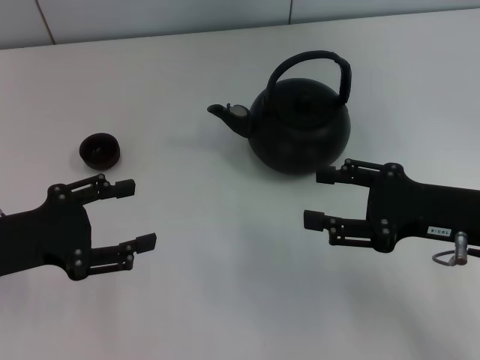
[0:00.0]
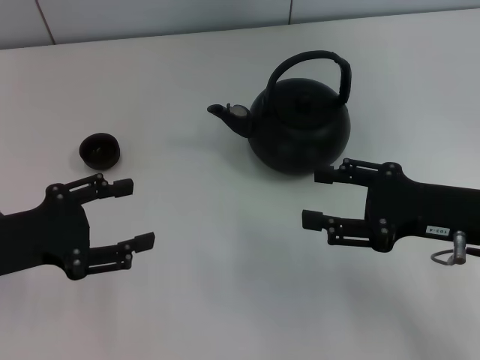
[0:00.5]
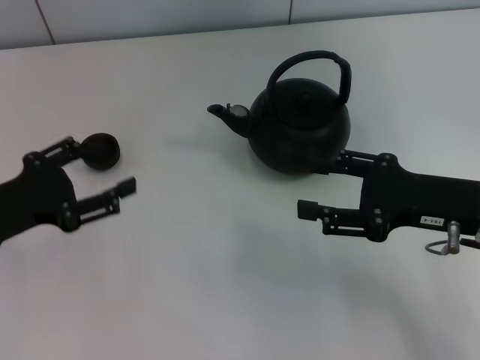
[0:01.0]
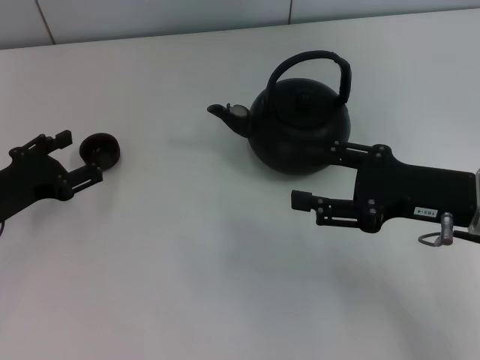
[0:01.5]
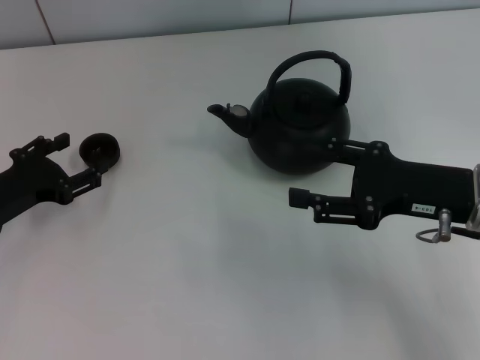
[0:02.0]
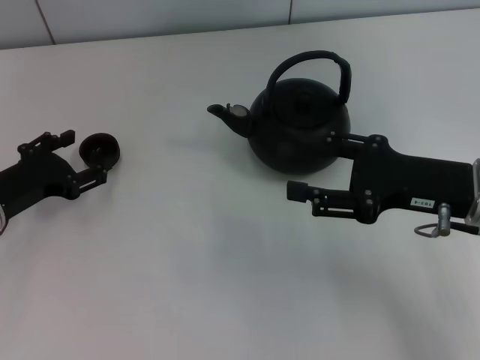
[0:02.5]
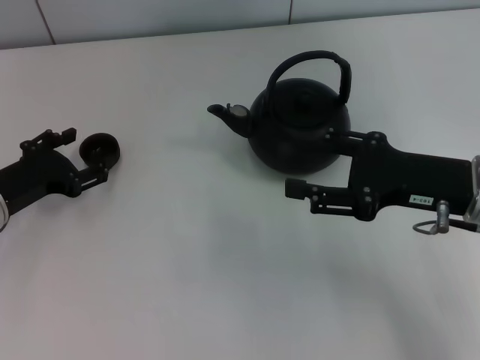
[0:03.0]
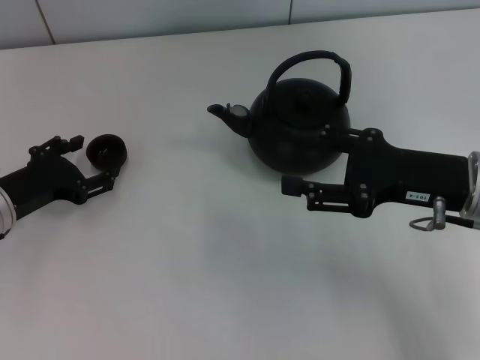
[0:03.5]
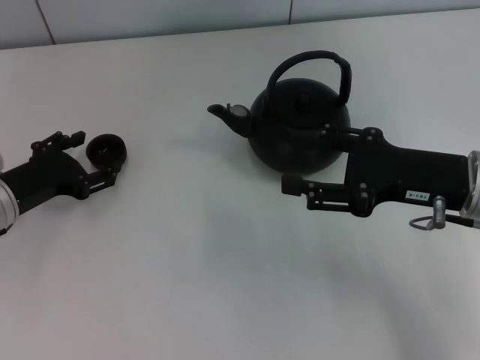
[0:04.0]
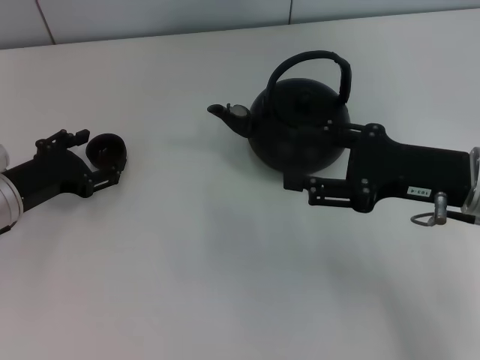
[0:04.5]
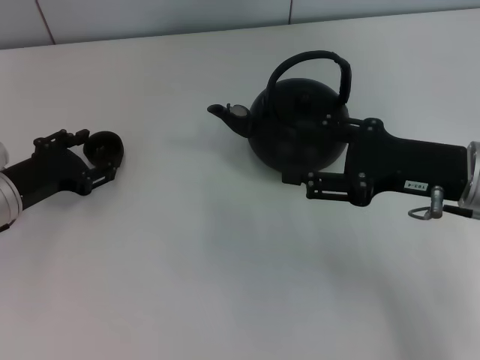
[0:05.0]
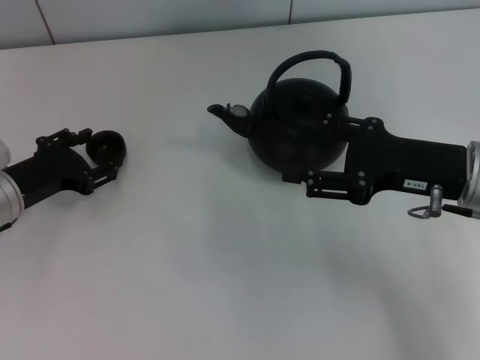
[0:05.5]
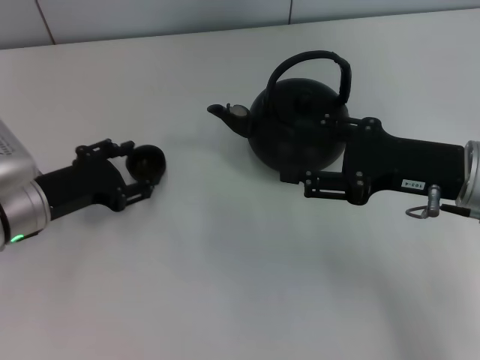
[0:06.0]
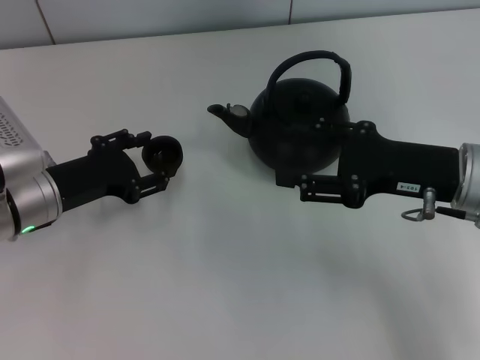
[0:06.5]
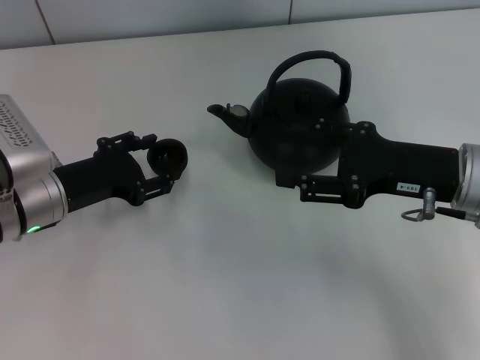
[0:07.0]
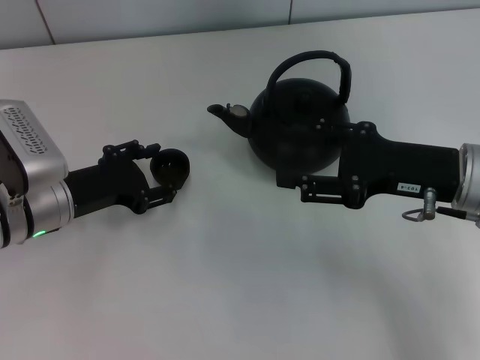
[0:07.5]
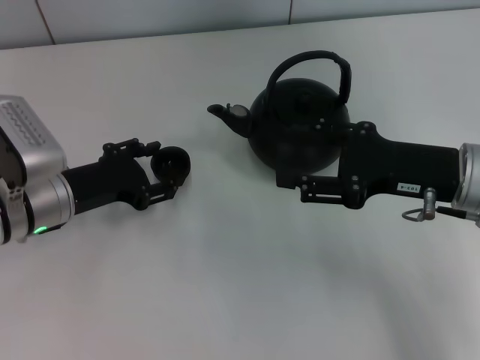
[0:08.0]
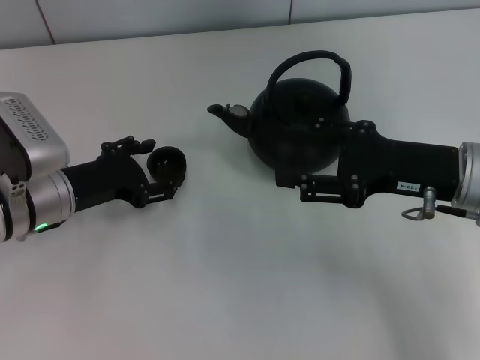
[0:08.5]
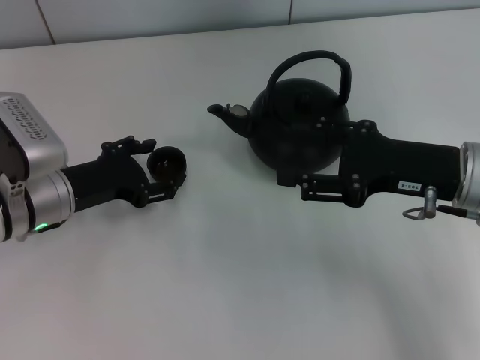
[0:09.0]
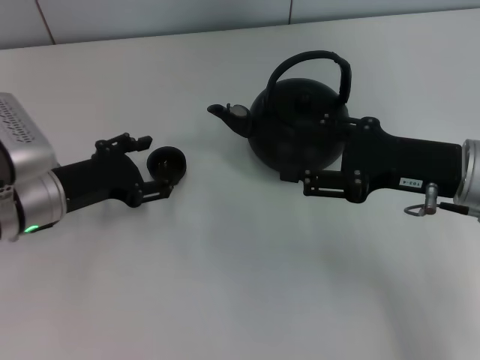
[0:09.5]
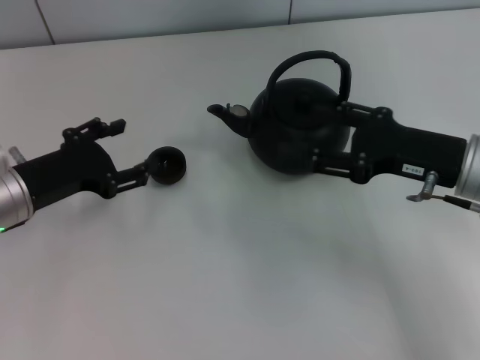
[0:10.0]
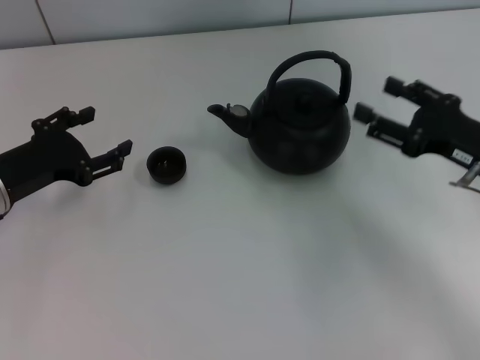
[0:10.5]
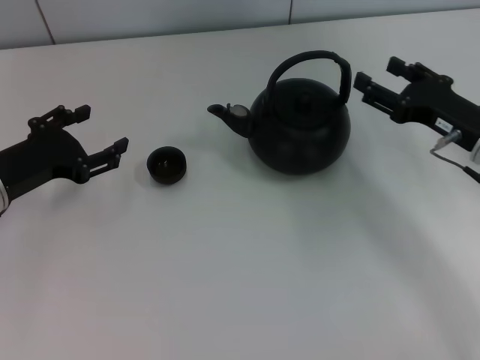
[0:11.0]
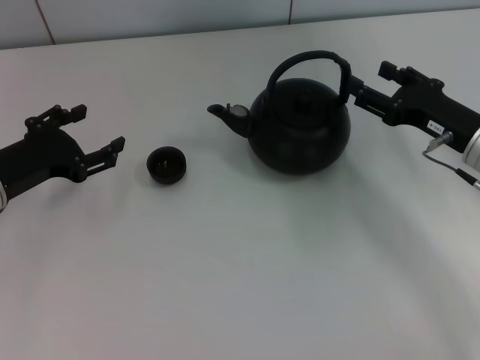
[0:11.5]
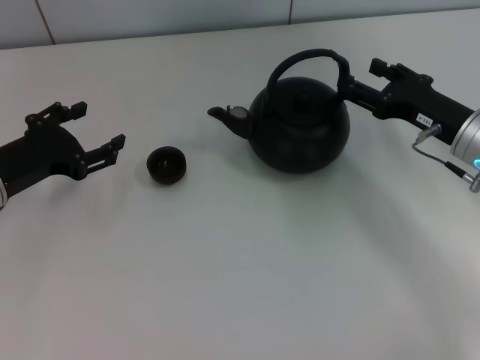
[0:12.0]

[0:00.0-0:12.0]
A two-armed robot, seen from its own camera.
Task of the whole recording: Grasp the handle of the teapot with one hand and pour tea into the teacup.
Step, 0:00.0 to 0:06.0: Pick up the teacup with the left gripper.
Step, 0:07.0 to 0:10.0: Place the teacup in the center of view with the left gripper.
0:00.0 to 0:02.0: The left gripper moves downward, about 5 cm.
0:02.0 to 0:04.0: The grippers make only small movements.
0:04.0 to 0:06.0: The left gripper closes.
0:06.0 to 0:08.0: The grippers make only small movements.
0:08.0 to 0:10.0: The left gripper opens its fingers.
0:10.0 to 0:12.0: The right gripper moves roughly 5 cm.

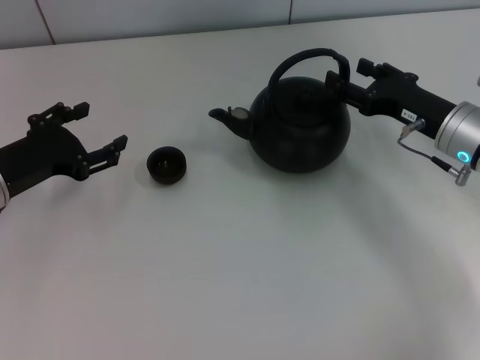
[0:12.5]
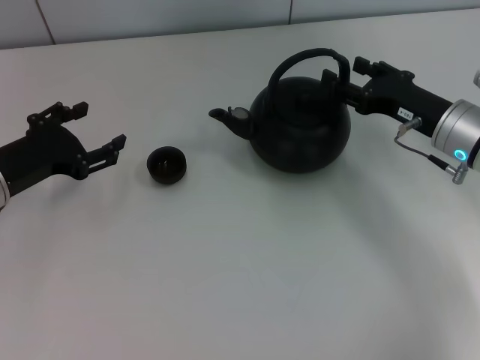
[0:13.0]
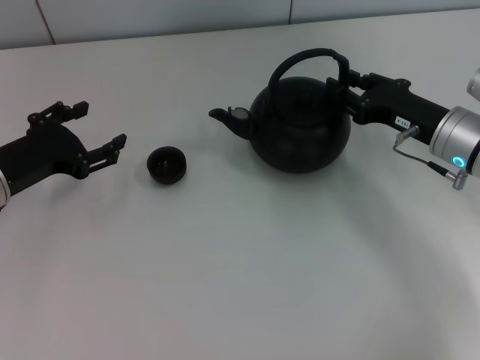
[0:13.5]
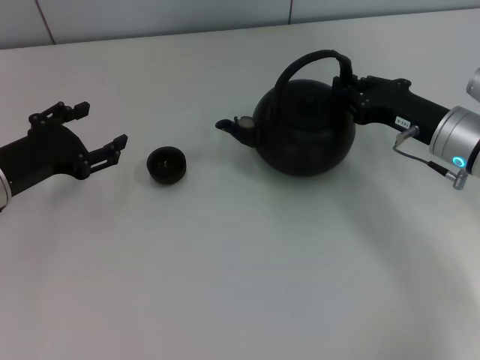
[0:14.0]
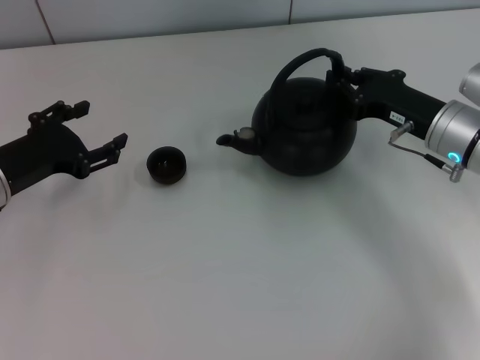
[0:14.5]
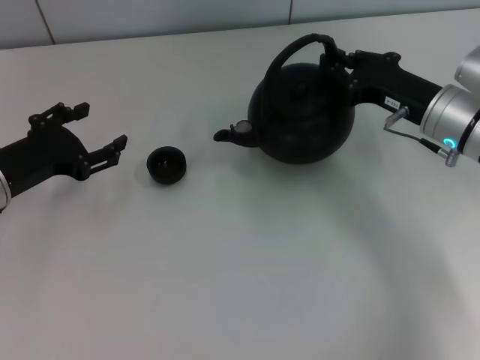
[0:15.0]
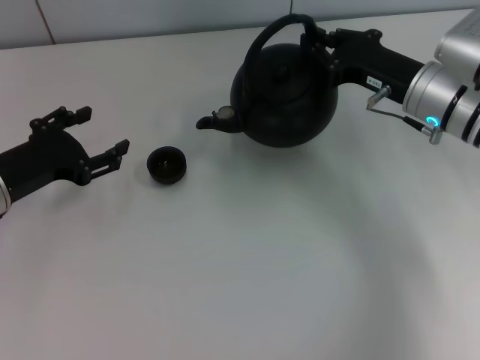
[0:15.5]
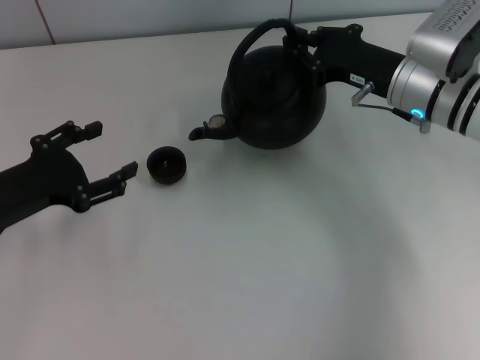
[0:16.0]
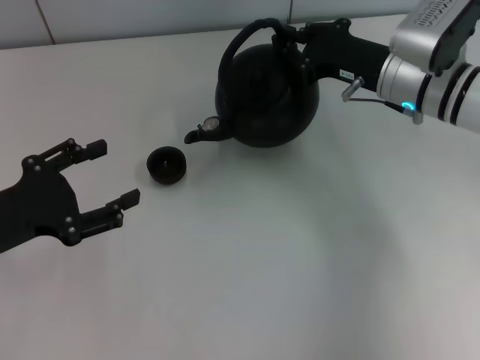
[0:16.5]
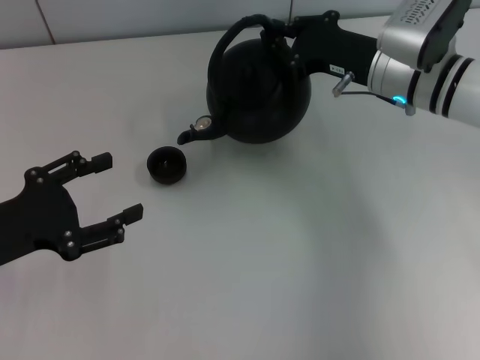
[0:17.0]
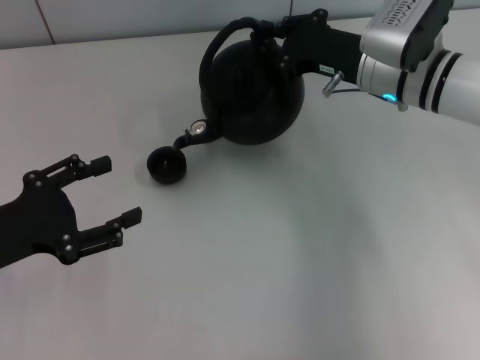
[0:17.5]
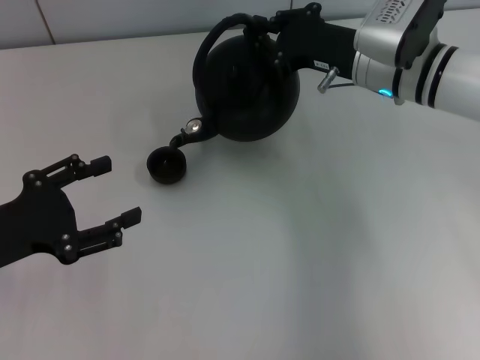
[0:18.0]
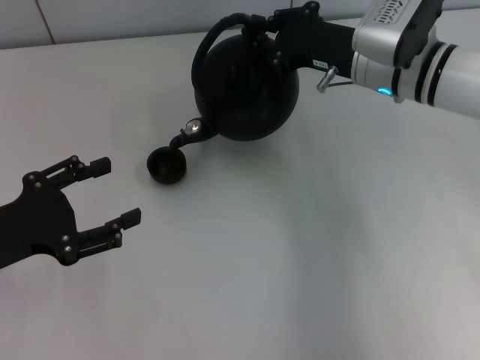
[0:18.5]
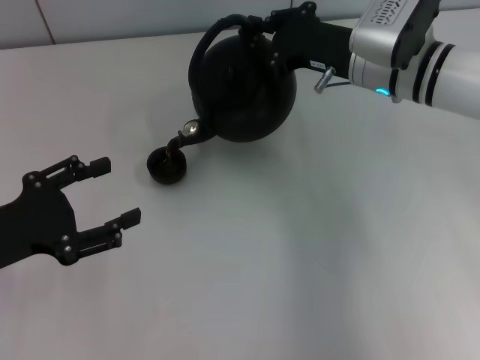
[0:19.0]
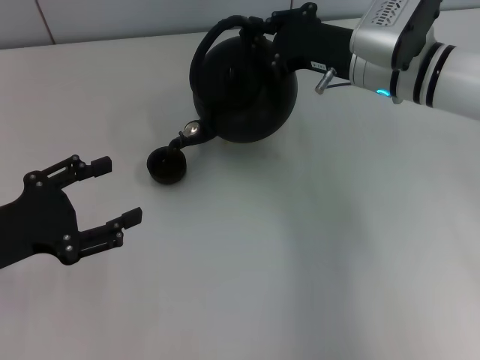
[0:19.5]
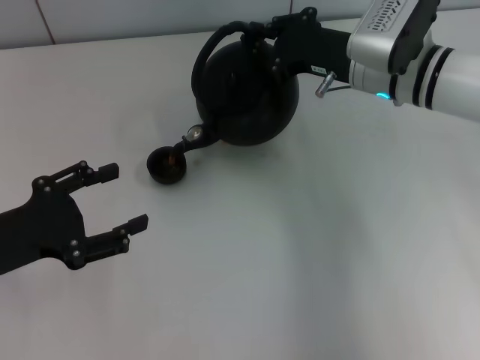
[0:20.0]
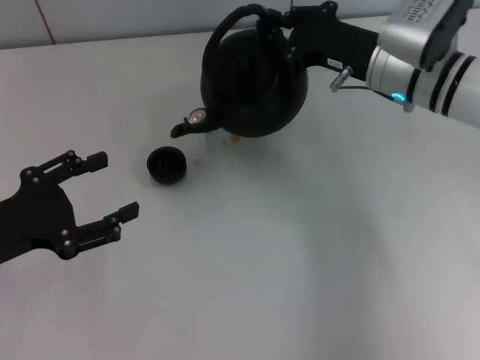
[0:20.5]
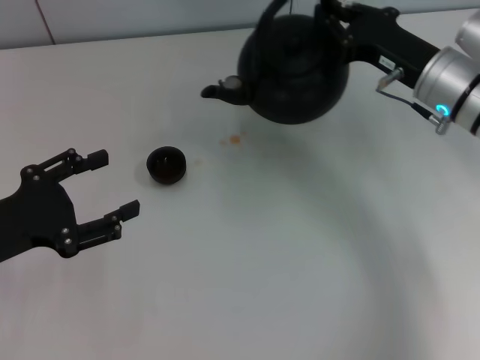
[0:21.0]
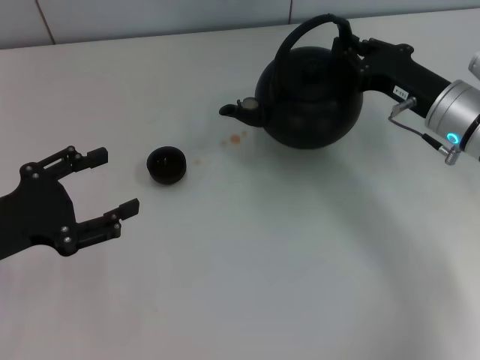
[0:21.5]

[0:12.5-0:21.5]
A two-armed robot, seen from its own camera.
Task of the whole recording: Grasp the handle of the teapot with one hand and pour tea into the teacup.
Step, 0:12.5 to 0:14.5: Pick up the teapot with the right gripper.
0:12.5 to 0:14.5: The right gripper closes up.
0:14.5 to 0:17.0: The right gripper is displaced to the left and forward by some 10 cm. Meanwhile the left gripper moves backward, approximately 10 cm.
0:17.0 to 0:19.5: There are only small adjustments of the grippers.
0:19.5 to 0:21.5: The right gripper shifts some 10 cm to the right and backward.

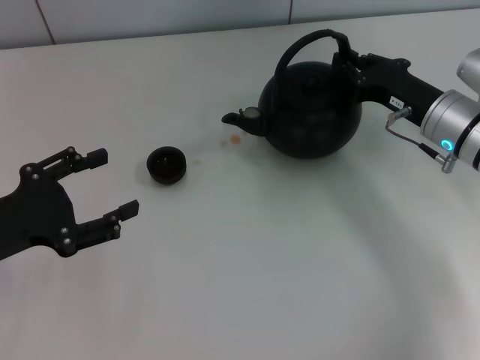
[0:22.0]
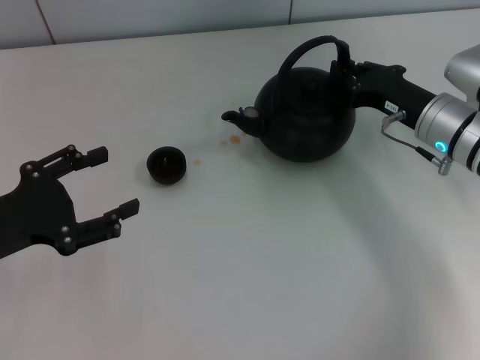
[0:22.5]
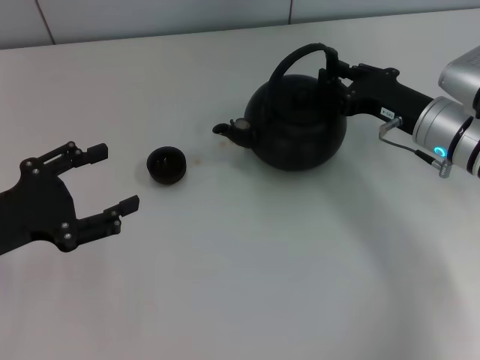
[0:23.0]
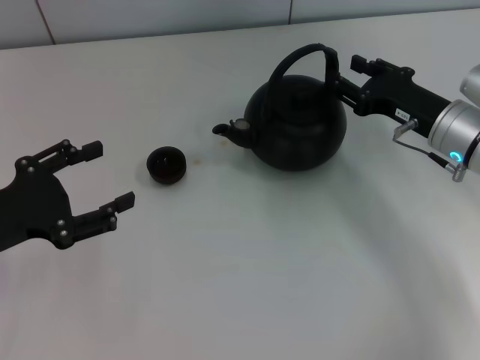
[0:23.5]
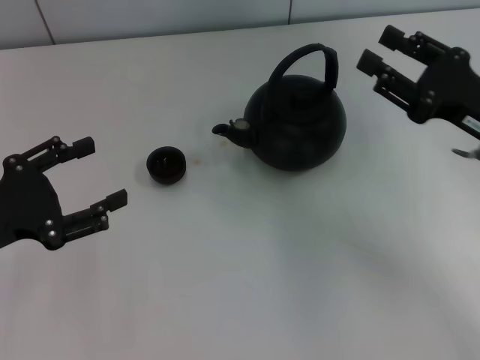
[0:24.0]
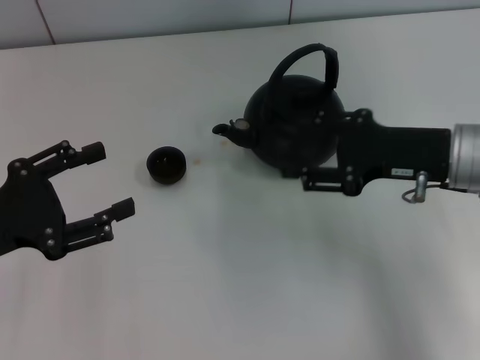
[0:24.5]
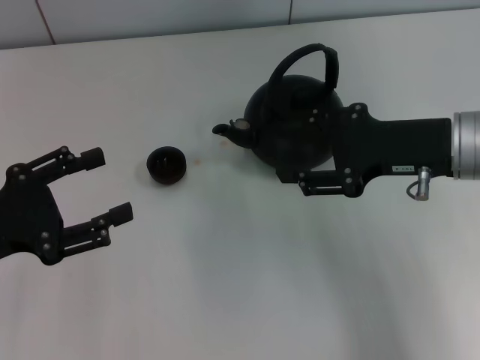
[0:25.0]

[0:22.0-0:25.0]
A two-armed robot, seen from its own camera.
Task of the whole recording: Grasp the handle of the teapot with one hand and pour tea into the teacup.
Step, 0:22.0 to 0:23.5: Put down the teapot with the right gripper.
0:22.0 to 0:23.5: The right gripper opens its fingers.
0:23.5 to 0:25.0: The right gripper moves upward, roughly 10 cm.

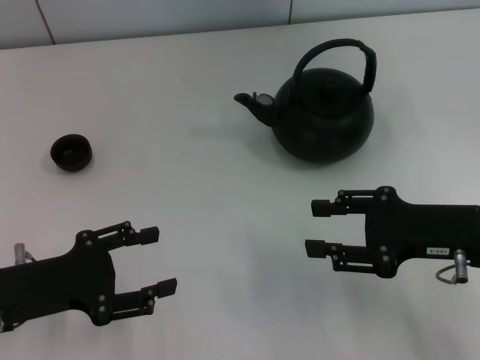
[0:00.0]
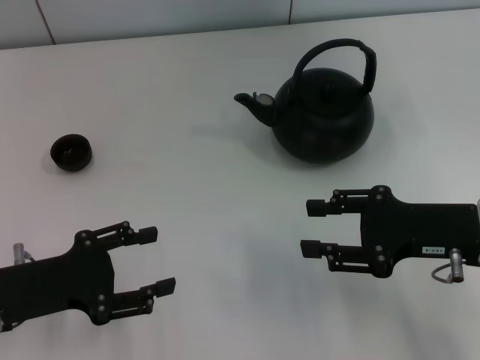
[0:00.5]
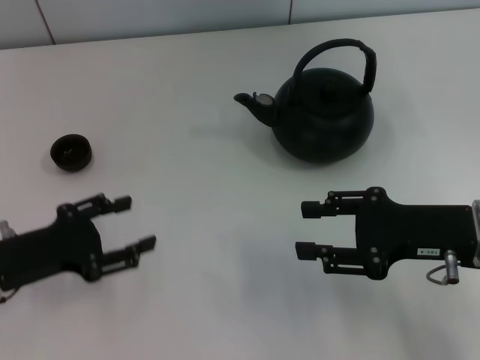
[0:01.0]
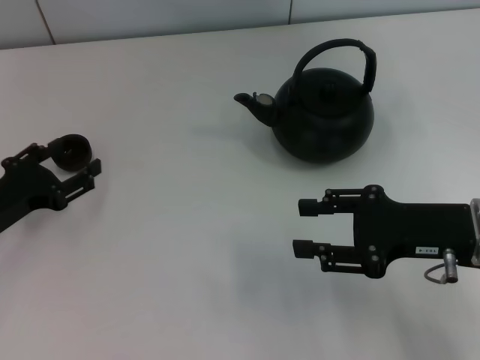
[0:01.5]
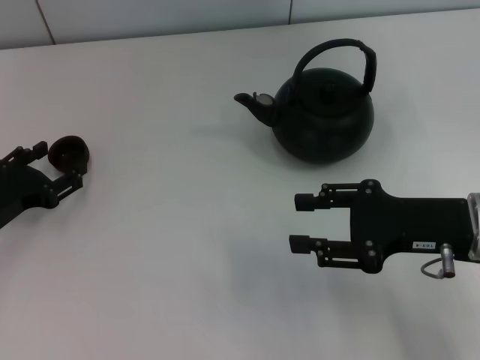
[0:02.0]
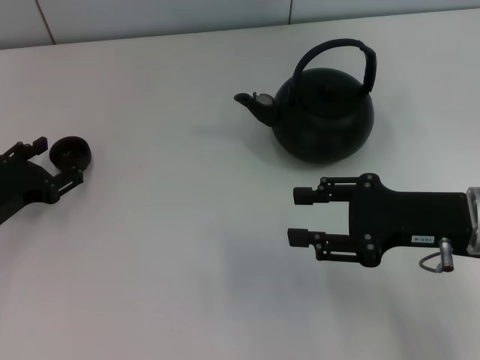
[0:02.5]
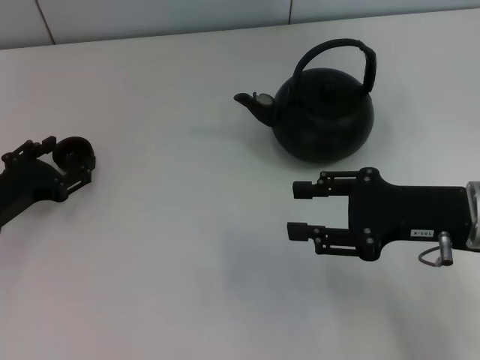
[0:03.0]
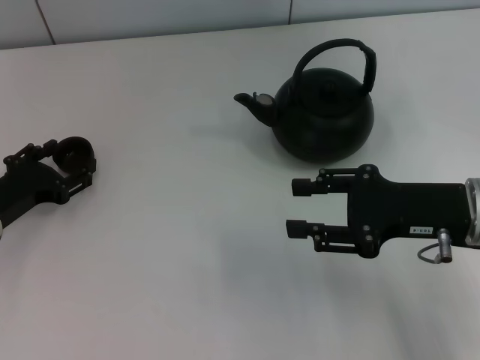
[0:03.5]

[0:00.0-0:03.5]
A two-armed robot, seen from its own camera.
Task of the whole recording: Grasp the handle of the teapot with one hand and pour tea into the teacup.
0:00.0 to 0:02.0: The left gripper heads forward, covering roughly 5 cm.
0:02.0 to 0:03.5: The grippers stay close to where they were, moving slightly.
